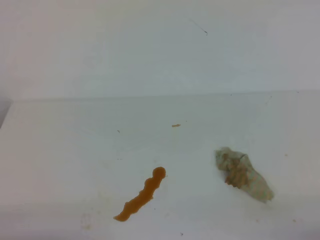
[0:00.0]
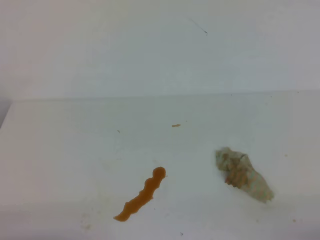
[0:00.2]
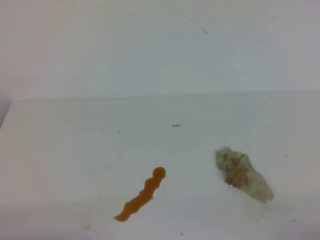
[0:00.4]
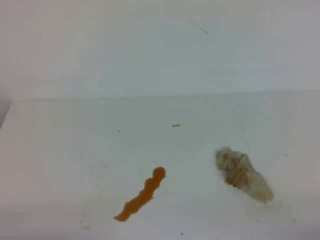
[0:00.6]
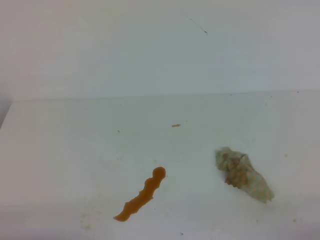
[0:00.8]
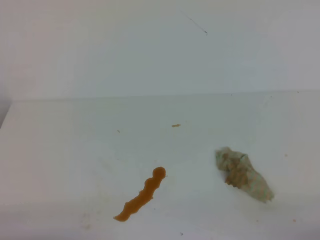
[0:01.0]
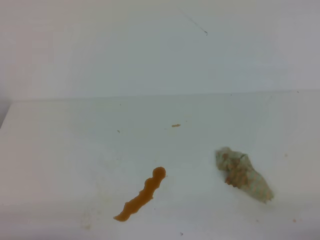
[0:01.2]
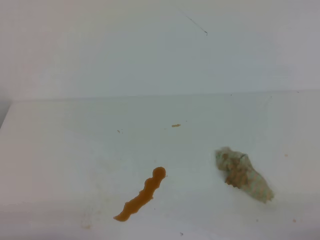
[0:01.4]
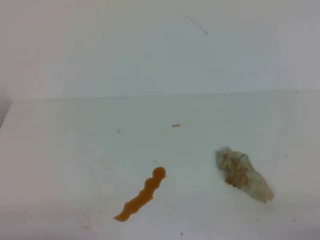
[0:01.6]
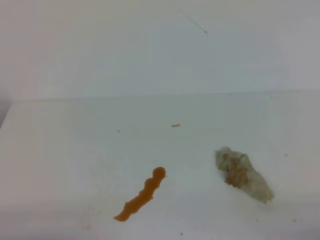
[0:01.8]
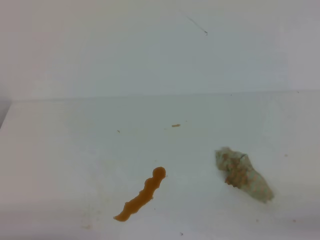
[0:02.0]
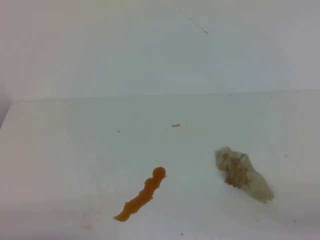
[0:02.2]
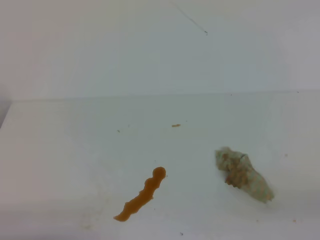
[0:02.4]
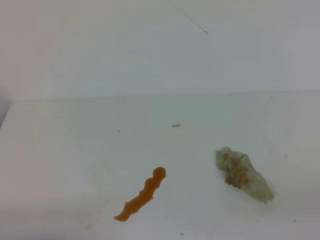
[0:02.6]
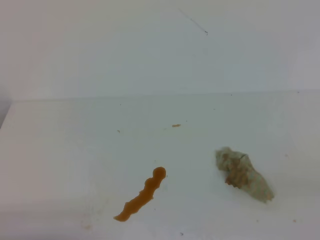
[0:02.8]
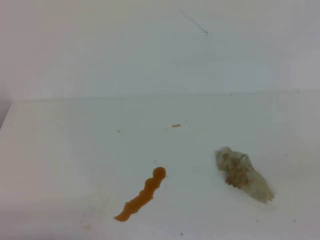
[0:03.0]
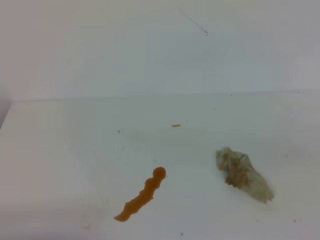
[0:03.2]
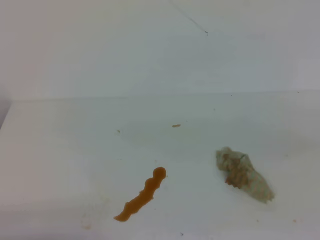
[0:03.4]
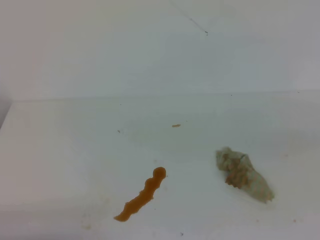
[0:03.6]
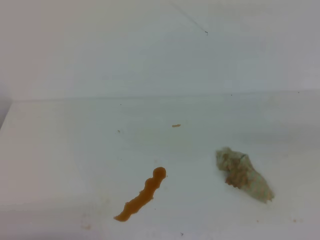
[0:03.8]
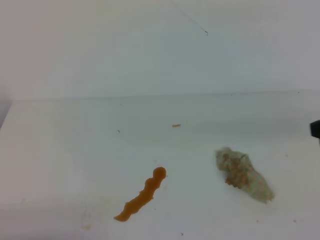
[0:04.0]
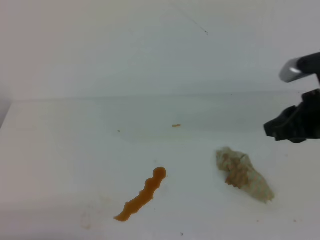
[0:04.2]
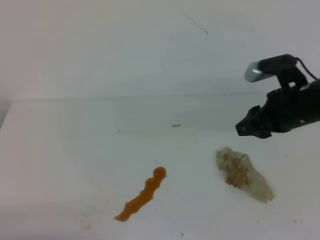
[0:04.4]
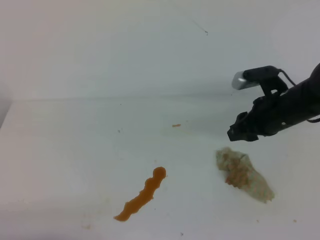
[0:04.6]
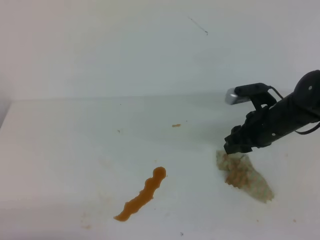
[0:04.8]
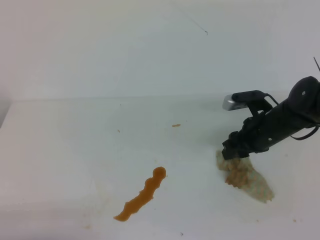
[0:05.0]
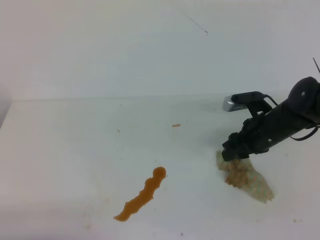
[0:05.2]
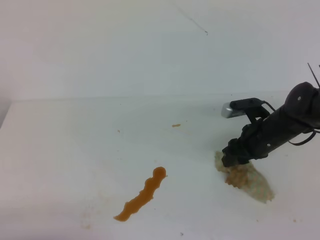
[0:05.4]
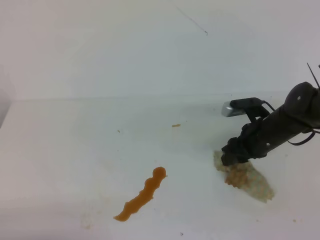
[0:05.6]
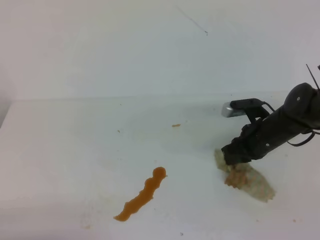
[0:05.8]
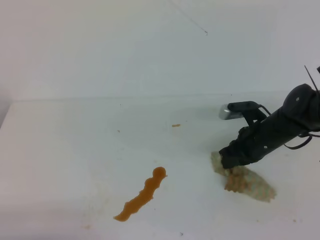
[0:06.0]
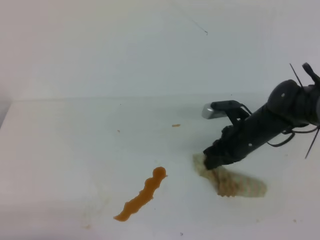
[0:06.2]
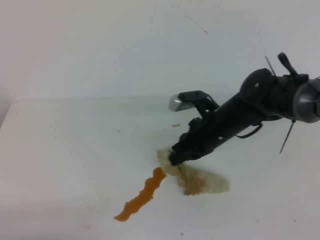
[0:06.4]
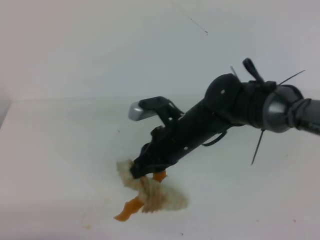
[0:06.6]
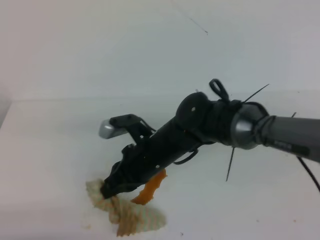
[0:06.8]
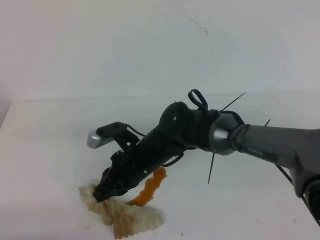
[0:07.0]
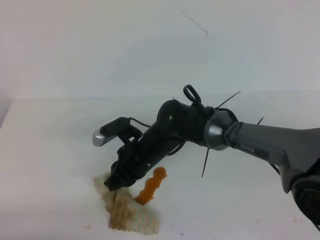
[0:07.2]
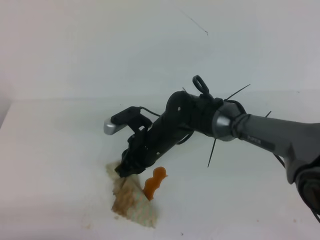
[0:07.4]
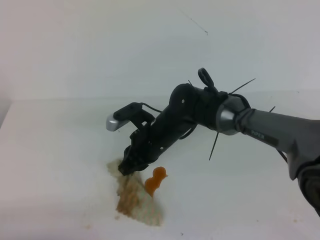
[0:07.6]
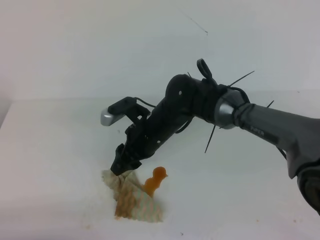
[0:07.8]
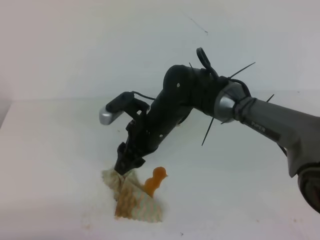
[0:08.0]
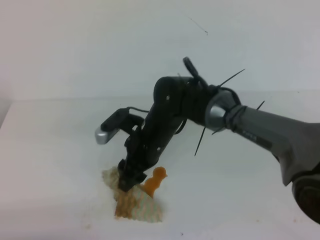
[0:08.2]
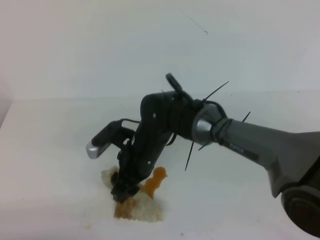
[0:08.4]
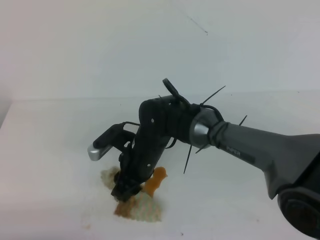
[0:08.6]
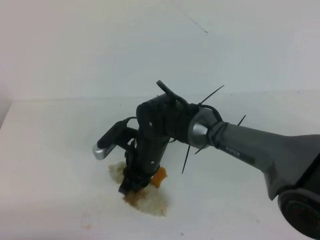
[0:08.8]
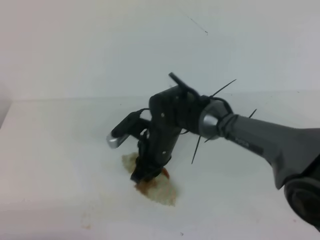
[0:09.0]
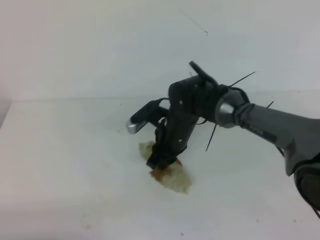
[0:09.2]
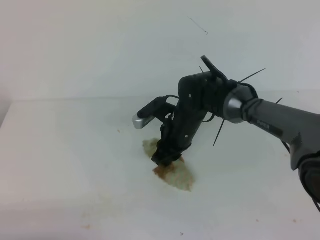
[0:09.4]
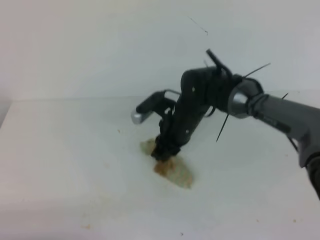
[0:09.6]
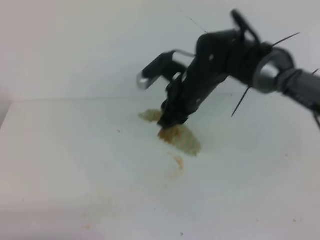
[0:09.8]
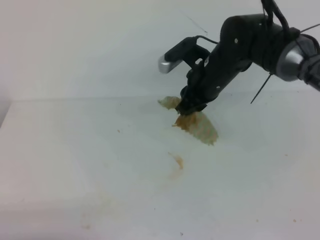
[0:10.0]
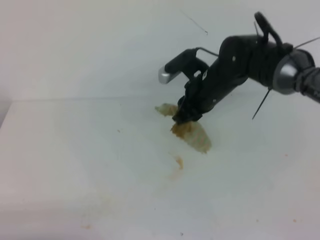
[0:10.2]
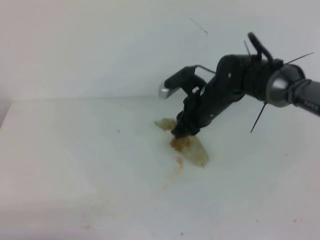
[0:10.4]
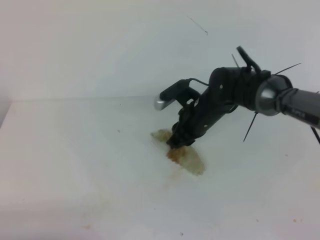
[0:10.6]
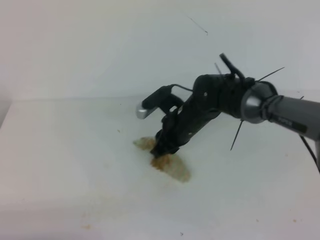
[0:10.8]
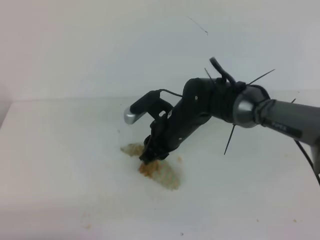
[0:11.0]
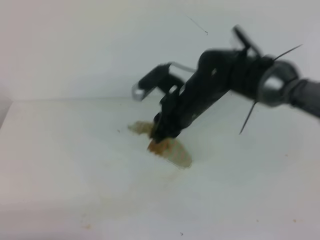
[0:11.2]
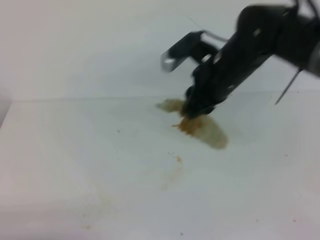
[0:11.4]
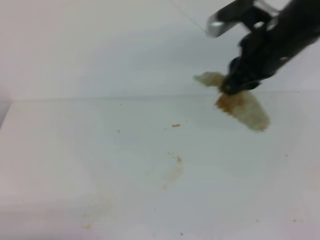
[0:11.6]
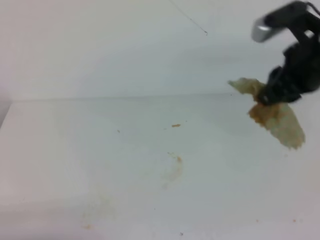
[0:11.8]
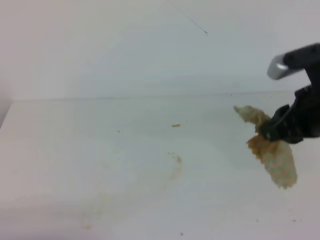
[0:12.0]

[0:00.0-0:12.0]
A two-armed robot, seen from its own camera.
0:00.0 to 0:01.6: Neither gripper changes place.
0:03.0 to 0:04.4: The right gripper is displaced forward by roughly 30 cm, and opens up.
0:04.4 to 0:06.0: The right gripper shifts about 15 cm downward and forward, and closes its fingers.
0:06.0 to 0:07.6: The right gripper is displaced to the left by some 20 cm.
0:07.6 to 0:09.0: The right gripper opens and closes again.
0:09.0 to 0:10.4: The right gripper moves to the right, forward and upward, roughly 10 cm.
0:10.4 to 0:12.0: The right gripper is displaced to the right, backward and upward by roughly 20 cm.

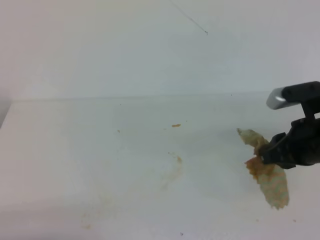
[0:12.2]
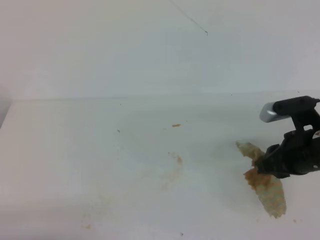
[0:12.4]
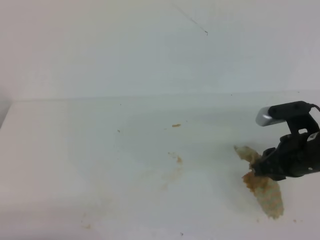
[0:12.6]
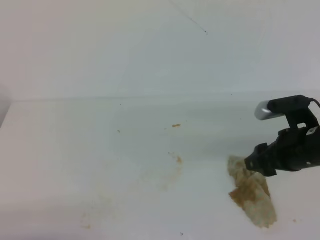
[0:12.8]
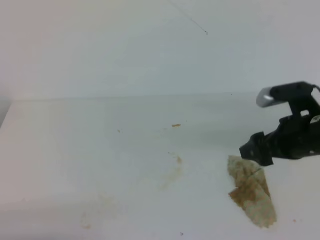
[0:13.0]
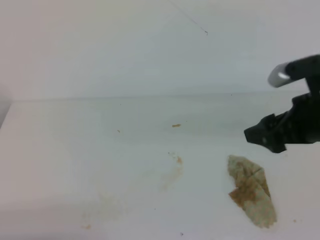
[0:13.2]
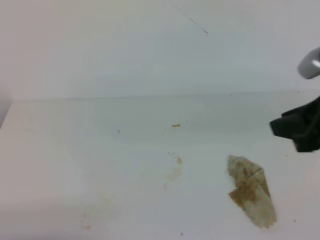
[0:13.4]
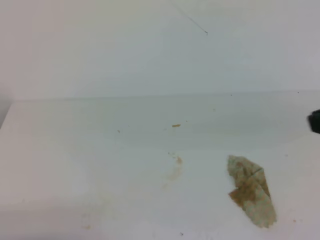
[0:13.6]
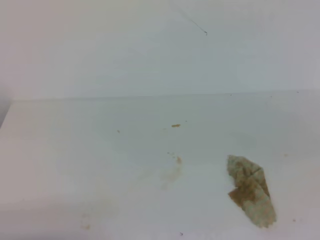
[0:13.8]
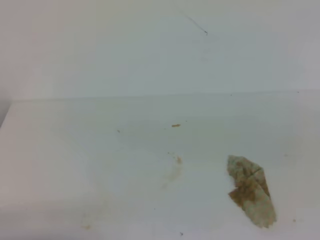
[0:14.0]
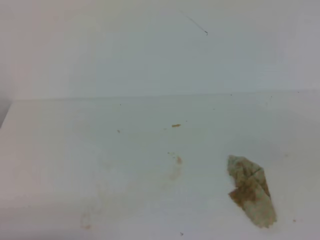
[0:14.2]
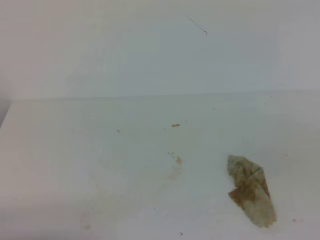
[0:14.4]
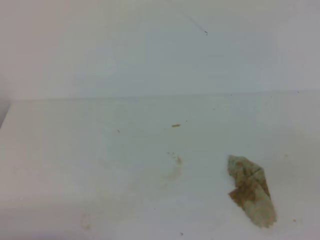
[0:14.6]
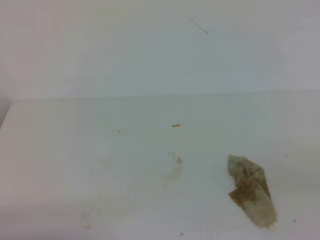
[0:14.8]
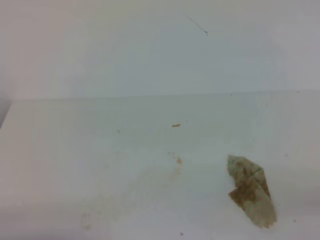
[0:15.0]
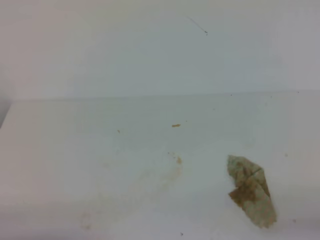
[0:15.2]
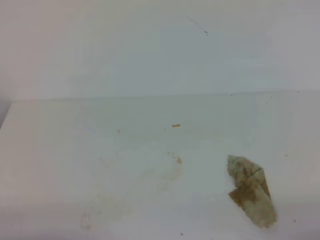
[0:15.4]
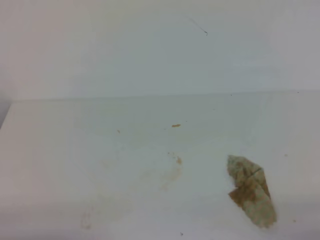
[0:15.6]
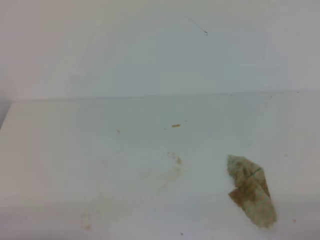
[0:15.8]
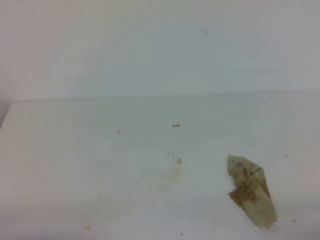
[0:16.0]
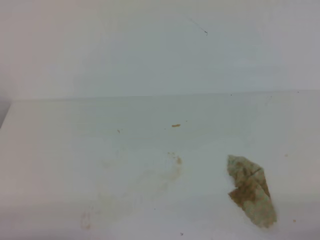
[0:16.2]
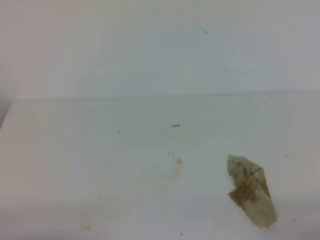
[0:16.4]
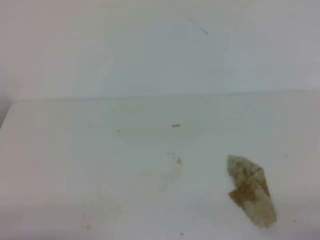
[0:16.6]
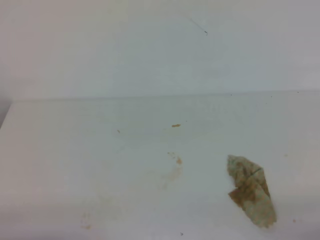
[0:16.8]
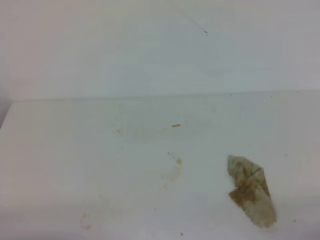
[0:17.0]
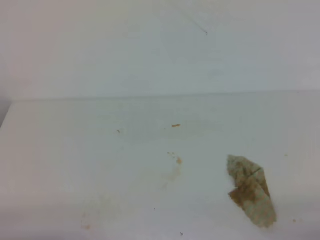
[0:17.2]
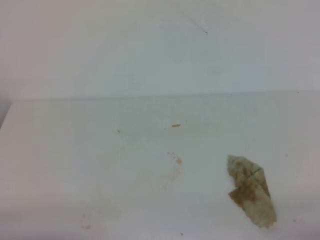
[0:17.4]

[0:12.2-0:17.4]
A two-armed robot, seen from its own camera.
0:12.2 to 0:14.0: The right gripper shifts some 20 cm backward and upward, and closes up.
0:15.6 to 0:17.4: Both grippers stay put.
